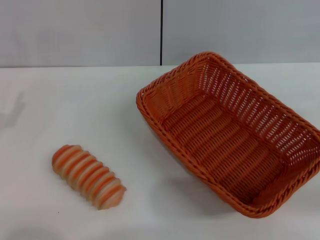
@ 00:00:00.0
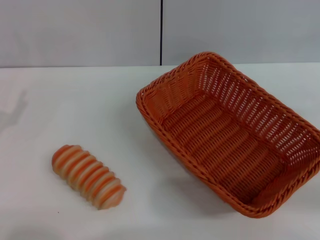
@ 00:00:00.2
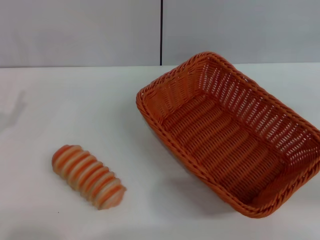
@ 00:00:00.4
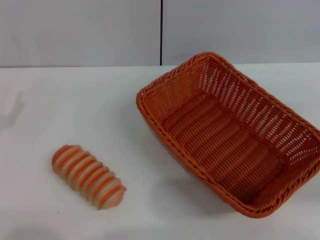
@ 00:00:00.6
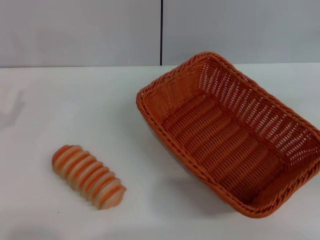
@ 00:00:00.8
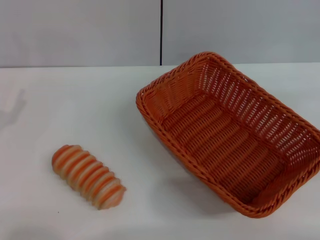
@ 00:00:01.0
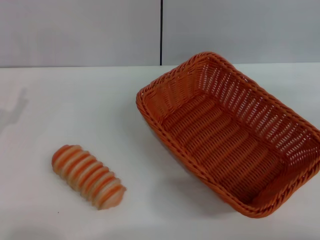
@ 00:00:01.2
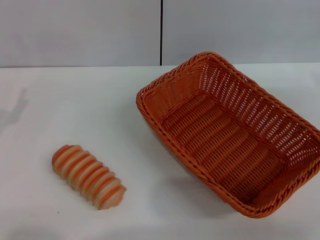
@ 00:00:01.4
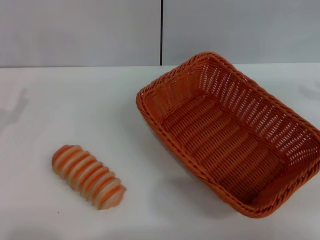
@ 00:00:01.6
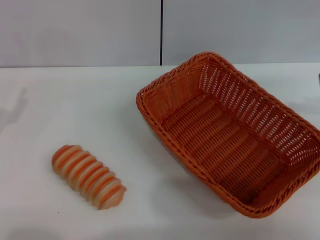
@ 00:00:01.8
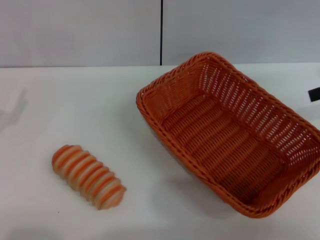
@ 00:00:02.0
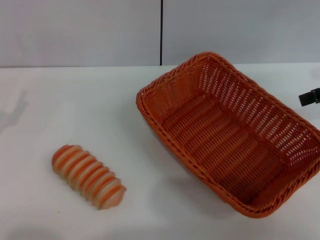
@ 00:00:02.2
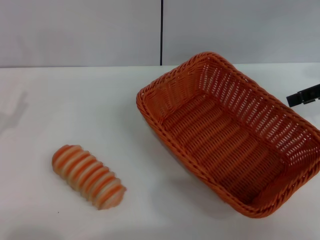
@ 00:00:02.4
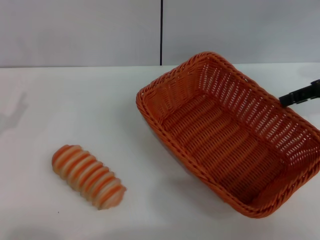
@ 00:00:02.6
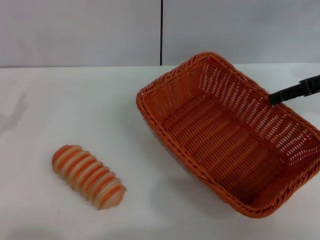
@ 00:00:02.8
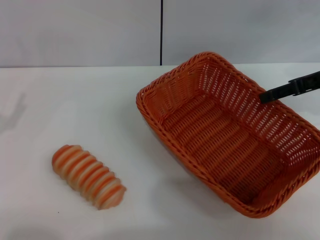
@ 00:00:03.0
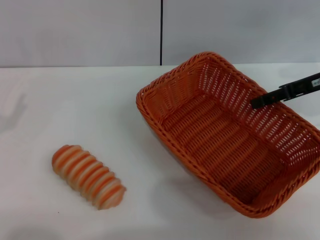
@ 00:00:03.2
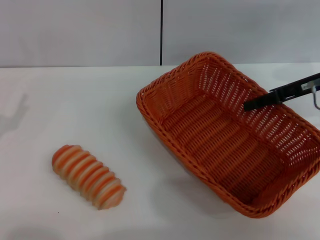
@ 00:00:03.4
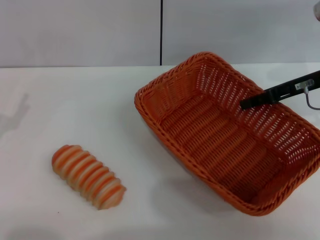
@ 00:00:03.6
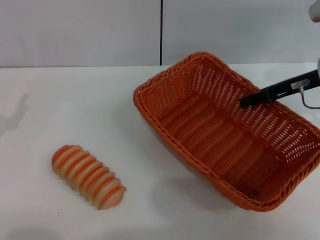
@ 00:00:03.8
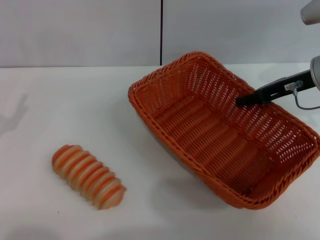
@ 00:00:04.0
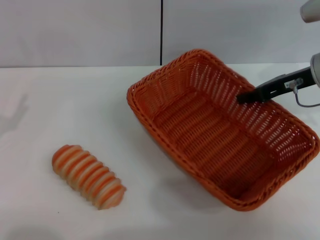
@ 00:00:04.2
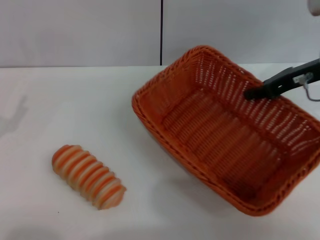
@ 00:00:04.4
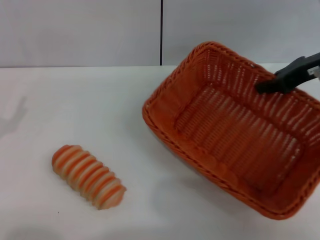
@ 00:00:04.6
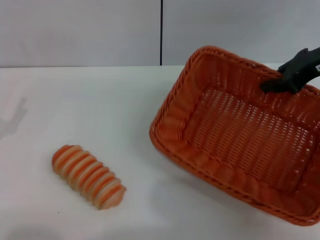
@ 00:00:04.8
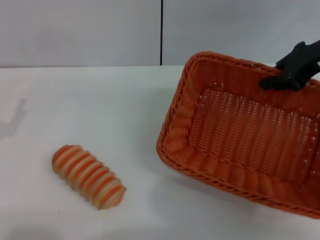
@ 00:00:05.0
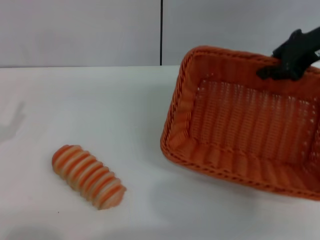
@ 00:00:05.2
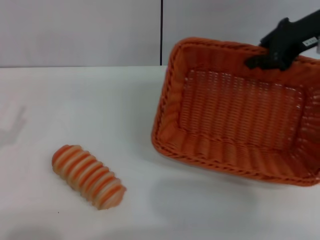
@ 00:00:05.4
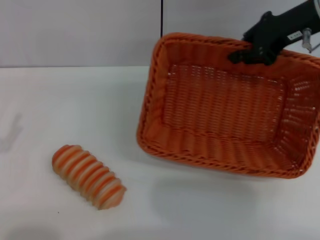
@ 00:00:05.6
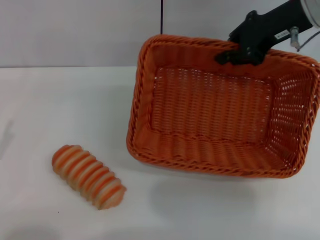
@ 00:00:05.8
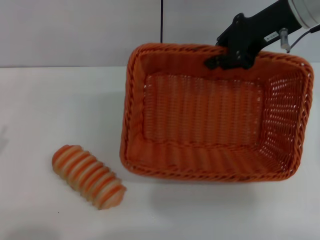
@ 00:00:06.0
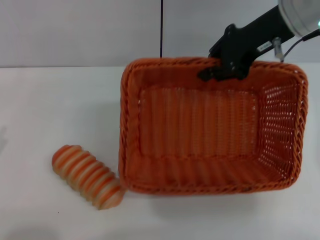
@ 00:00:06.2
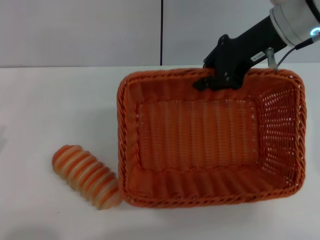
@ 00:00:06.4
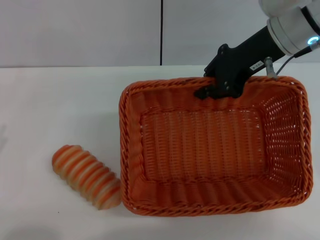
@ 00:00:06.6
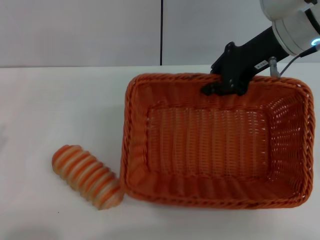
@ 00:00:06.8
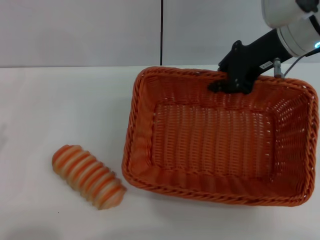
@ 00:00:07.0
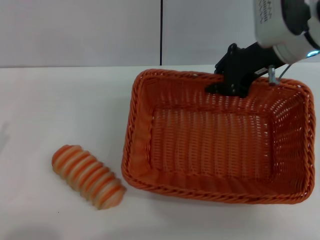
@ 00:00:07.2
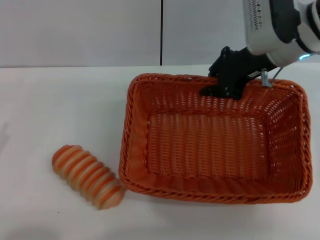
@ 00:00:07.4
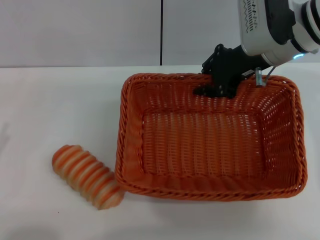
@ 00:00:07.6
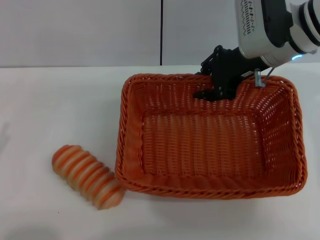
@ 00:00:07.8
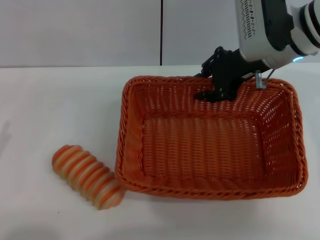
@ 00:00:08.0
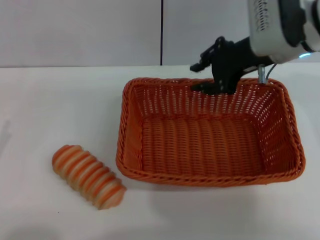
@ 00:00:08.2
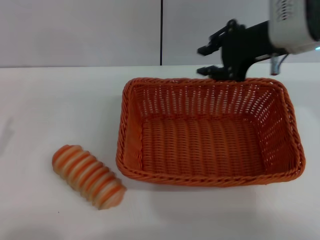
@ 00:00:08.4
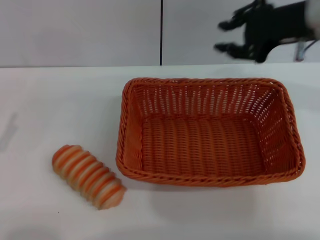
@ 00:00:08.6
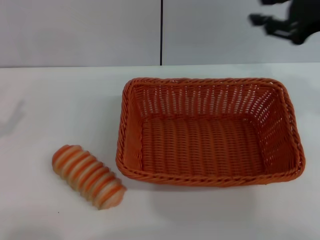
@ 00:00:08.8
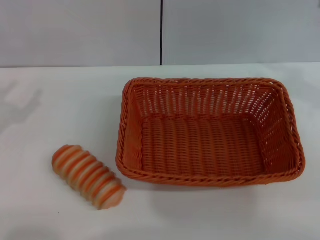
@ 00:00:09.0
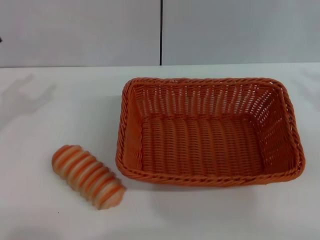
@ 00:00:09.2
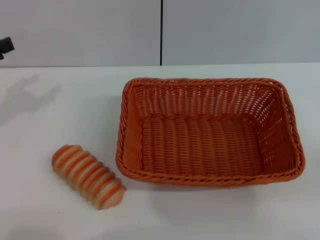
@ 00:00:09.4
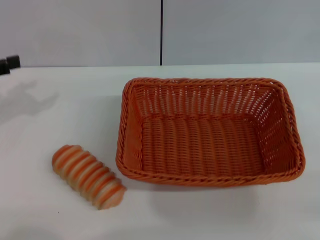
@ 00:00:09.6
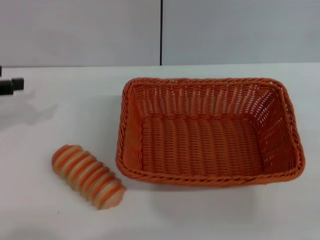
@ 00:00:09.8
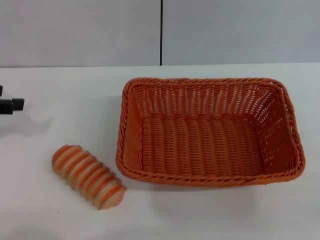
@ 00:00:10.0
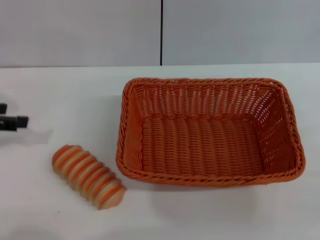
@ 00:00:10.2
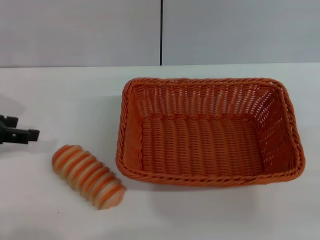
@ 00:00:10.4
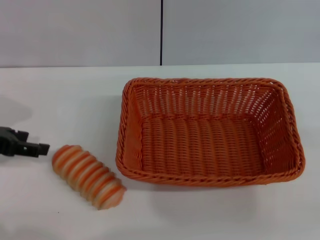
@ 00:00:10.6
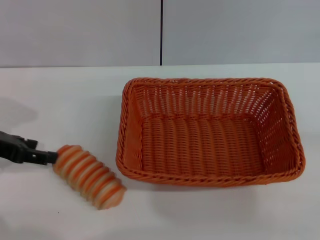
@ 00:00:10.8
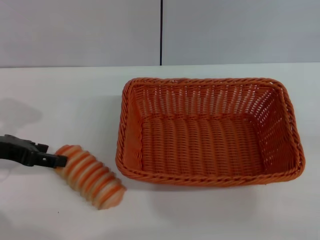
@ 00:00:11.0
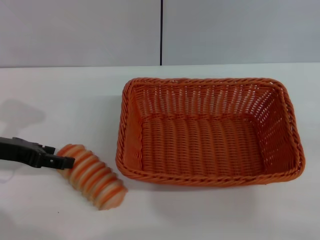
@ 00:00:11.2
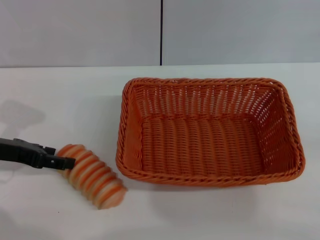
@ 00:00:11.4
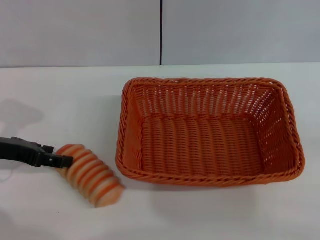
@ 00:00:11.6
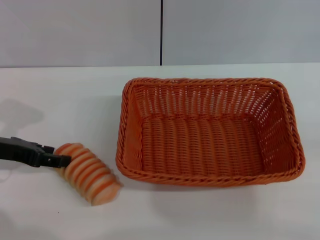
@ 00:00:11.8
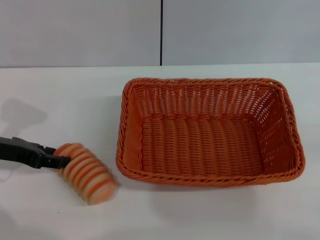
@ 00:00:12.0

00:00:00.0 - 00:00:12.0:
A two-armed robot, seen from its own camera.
Step, 00:00:00.0 - 00:00:04.6: Pick up the light basket with the right gripper.
Step, 00:00:05.0 - 00:00:08.2: Place the light basket in the center of view with the right gripper.
00:00:01.6 - 00:00:03.0: The right gripper moves to the left, forward and downward, approximately 10 cm.
00:00:03.0 - 00:00:04.4: The right gripper closes up.
00:00:04.4 - 00:00:06.0: The right gripper heads upward and to the left, covering about 10 cm, while the left gripper goes about 5 cm backward.
00:00:06.0 - 00:00:07.6: The right gripper shifts by some 5 cm.
00:00:07.6 - 00:00:09.0: The right gripper heads to the right and backward, covering some 20 cm; the left gripper is displaced forward by approximately 10 cm.
00:00:09.0 - 00:00:10.4: The left gripper is displaced forward by some 5 cm.
00:00:10.4 - 00:00:12.0: The left gripper shifts some 5 cm downward.

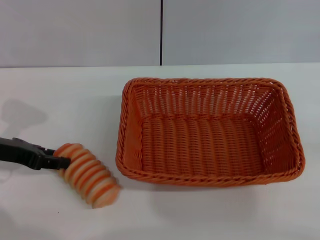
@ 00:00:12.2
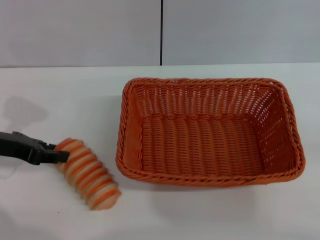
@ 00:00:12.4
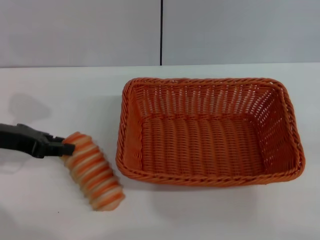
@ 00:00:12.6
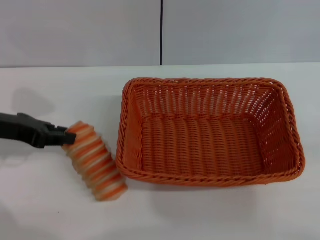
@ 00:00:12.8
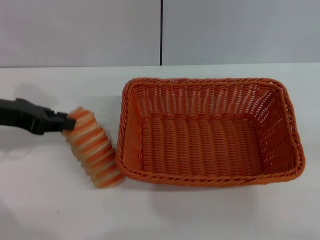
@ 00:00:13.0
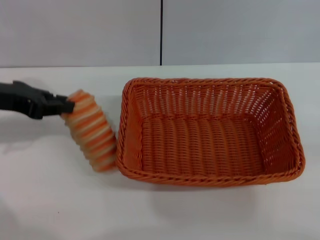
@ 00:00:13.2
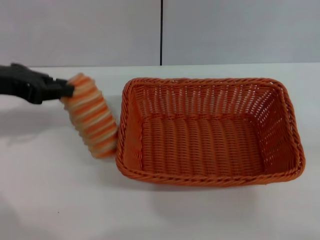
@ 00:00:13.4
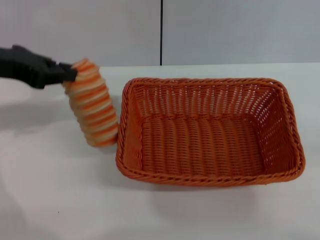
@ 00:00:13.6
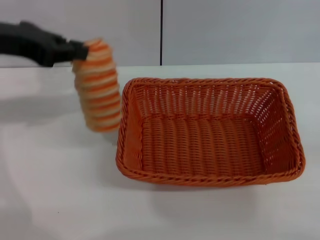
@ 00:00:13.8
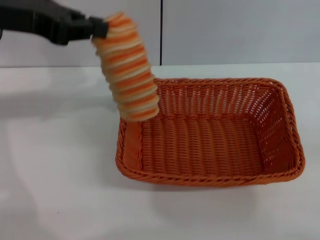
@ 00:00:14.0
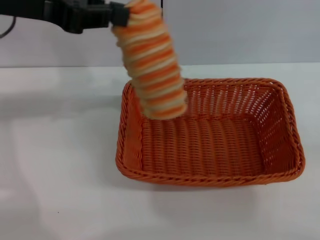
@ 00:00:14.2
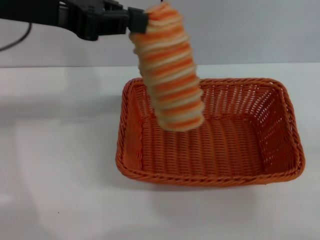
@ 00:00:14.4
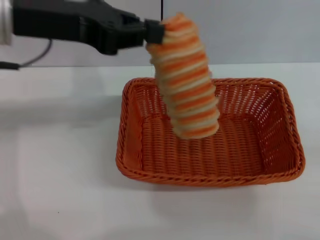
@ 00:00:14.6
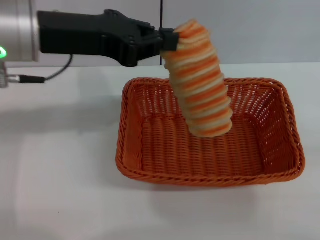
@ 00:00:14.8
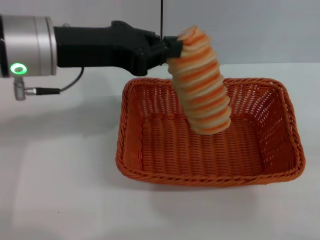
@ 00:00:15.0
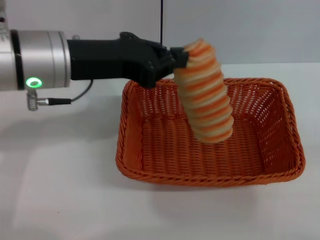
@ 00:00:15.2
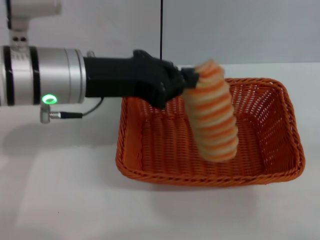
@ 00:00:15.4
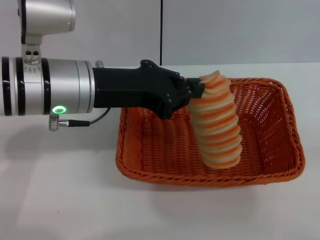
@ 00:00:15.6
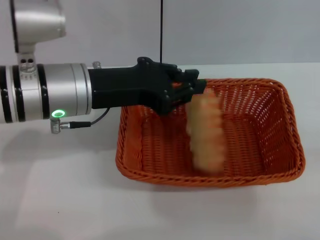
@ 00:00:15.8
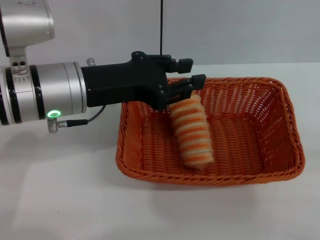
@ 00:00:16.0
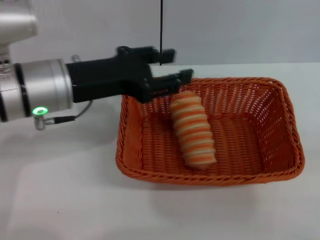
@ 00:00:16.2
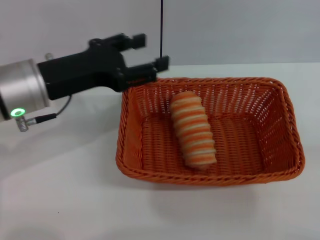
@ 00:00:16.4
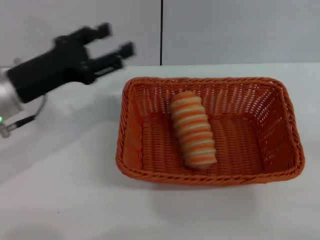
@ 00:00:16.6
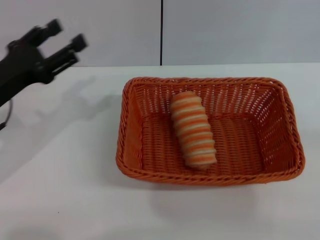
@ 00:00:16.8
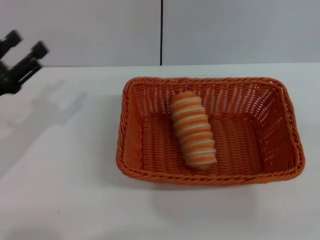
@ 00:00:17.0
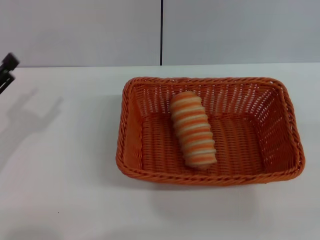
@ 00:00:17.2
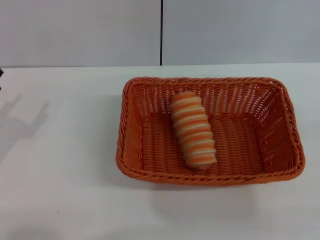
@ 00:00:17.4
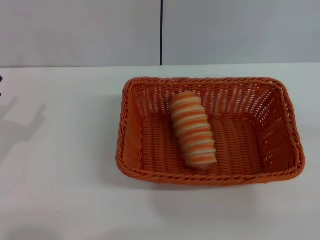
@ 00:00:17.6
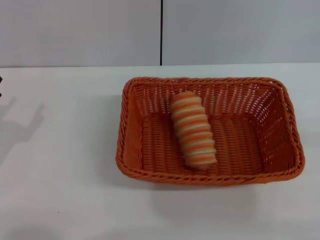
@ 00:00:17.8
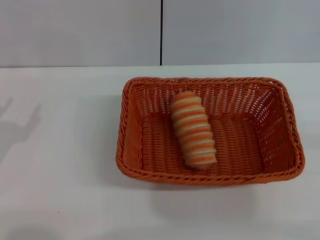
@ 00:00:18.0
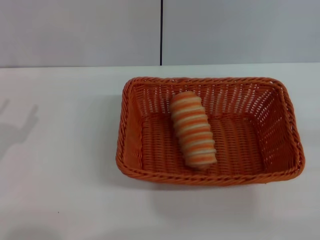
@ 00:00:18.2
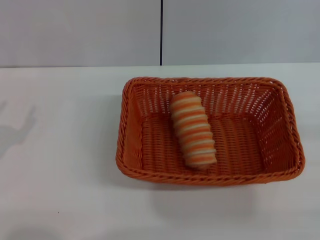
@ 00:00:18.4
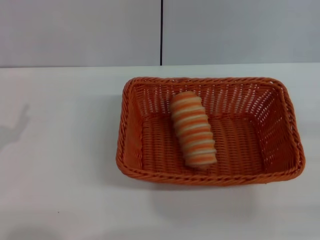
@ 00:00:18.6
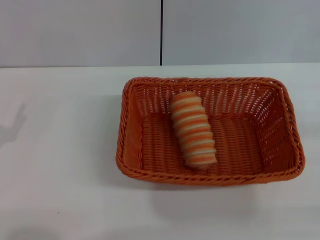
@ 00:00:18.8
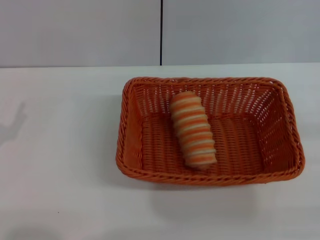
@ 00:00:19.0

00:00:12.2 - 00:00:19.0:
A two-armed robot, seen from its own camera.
Step, 00:00:13.6 - 00:00:16.0: Place the long bread into the light basket with the left gripper.
00:00:12.2 - 00:00:13.6: The left gripper goes about 15 cm upward, and closes its fingers.
00:00:13.6 - 00:00:15.0: The left gripper is displaced to the right by some 10 cm.
00:00:15.0 - 00:00:16.2: The left gripper travels downward by about 5 cm, and opens up.
00:00:16.2 - 00:00:17.6: The left gripper goes roughly 20 cm to the left, downward and backward, and opens up.
